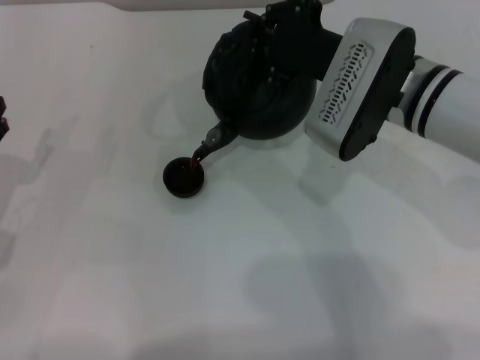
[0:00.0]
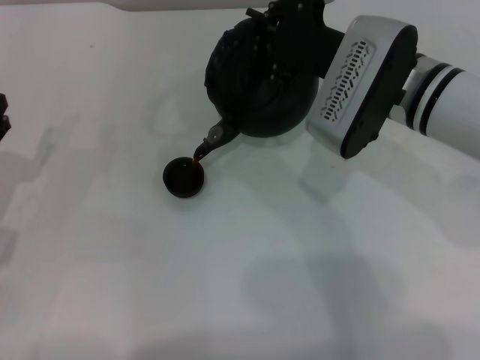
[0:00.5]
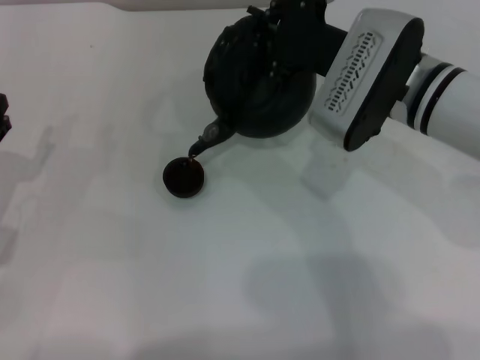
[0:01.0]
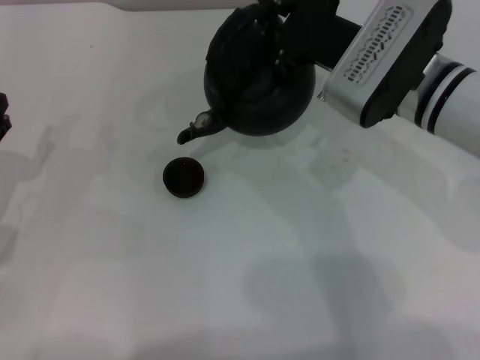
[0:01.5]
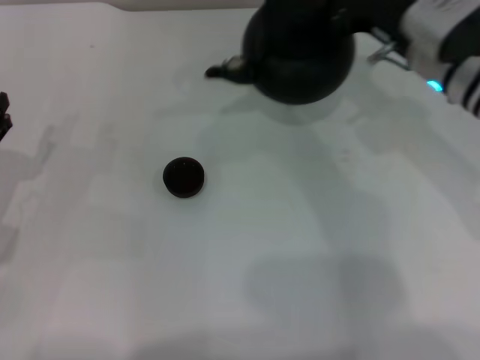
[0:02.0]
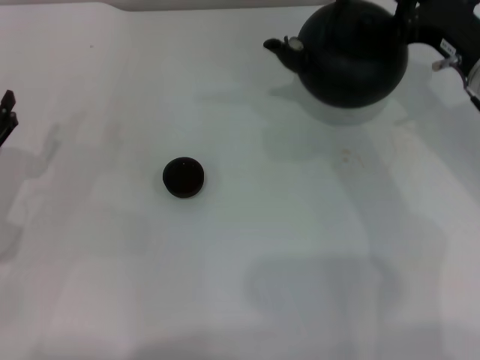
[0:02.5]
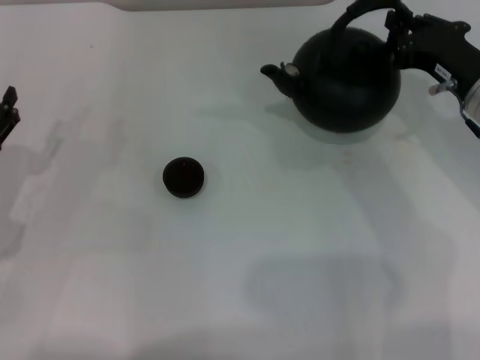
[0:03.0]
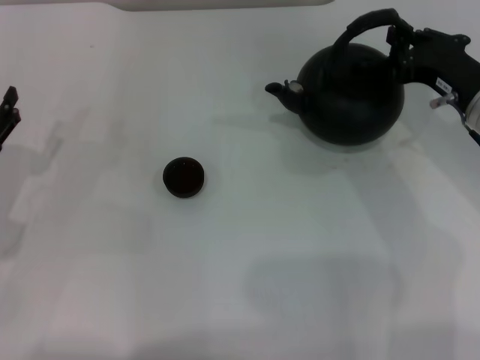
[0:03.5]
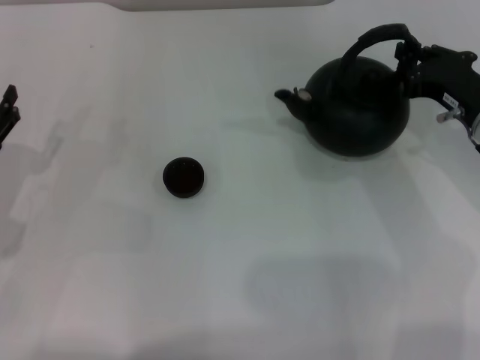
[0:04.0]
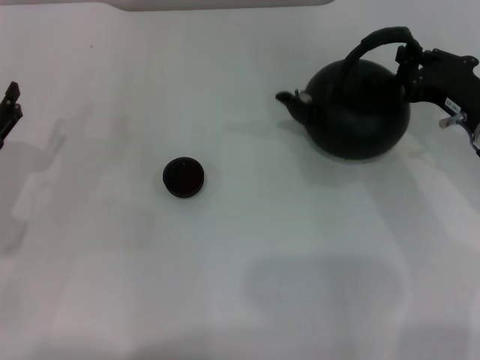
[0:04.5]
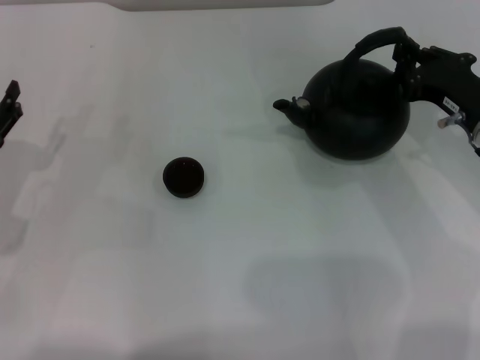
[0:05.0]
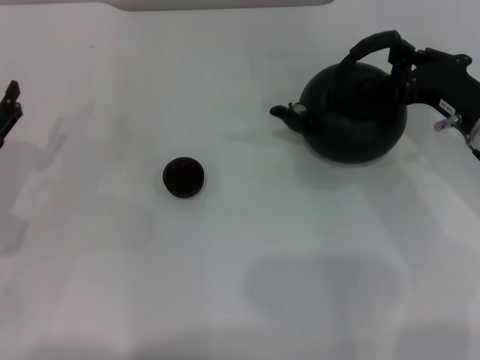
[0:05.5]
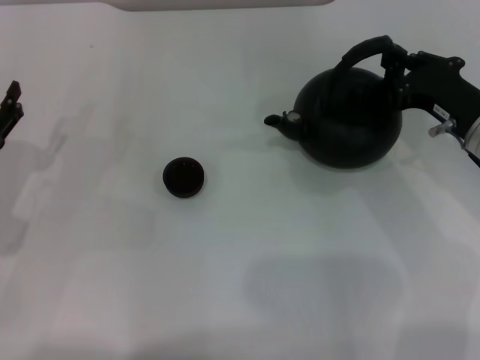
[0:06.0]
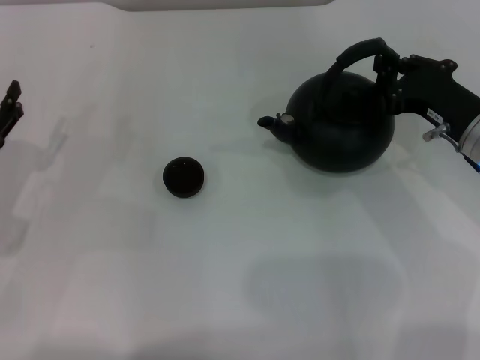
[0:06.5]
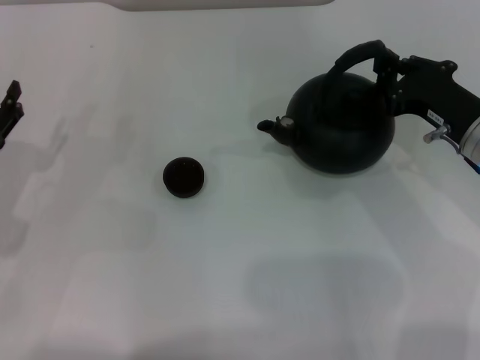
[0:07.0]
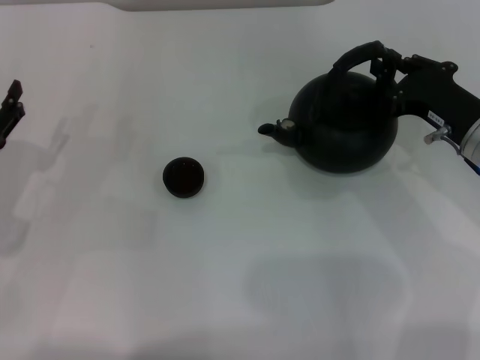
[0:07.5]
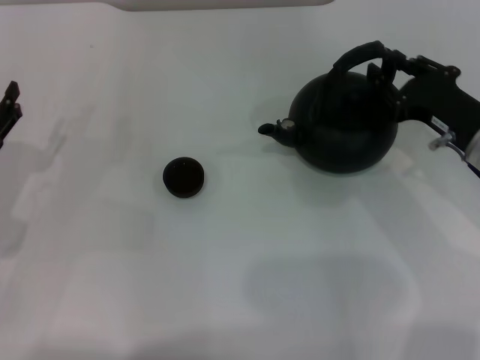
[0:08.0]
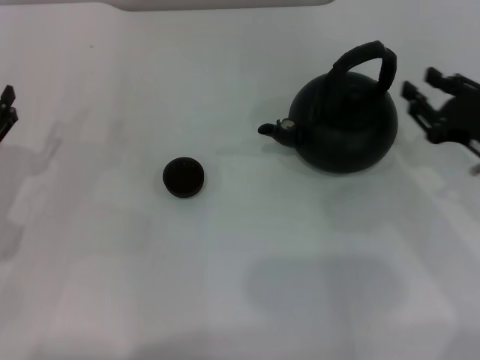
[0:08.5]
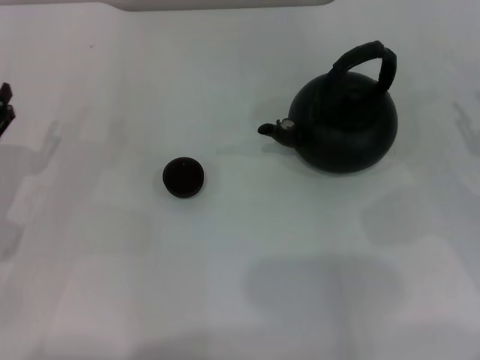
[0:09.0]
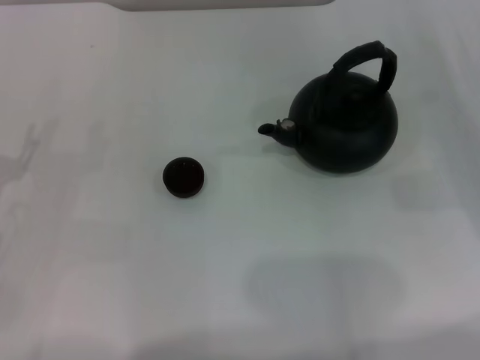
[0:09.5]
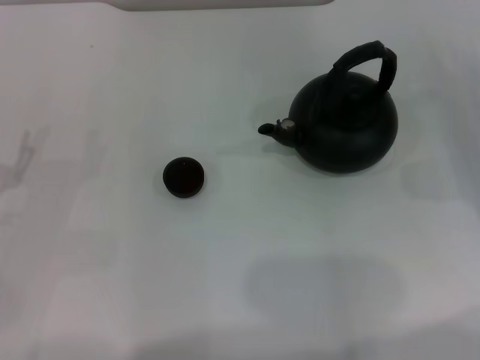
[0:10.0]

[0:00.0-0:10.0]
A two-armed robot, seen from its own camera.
Task of the whole recording: Grasp the handle of the teapot with one hand and pour tea into the teacup.
Step, 0:02.0 to 0:08.5: Put down the teapot with the right gripper.
0:00.0 to 0:02.0: The right gripper shifts roughly 5 cm to the right.
0:02.0 to 0:04.0: The right gripper heads to the right and downward, covering approximately 10 cm.
0:04.0 to 0:06.0: The grippers stay close to where they were, moving slightly.
0:06.0 to 0:08.0: Both grippers stay about where they are.
0:08.0 to 0:10.0: The right gripper travels to the right by approximately 10 cm.
